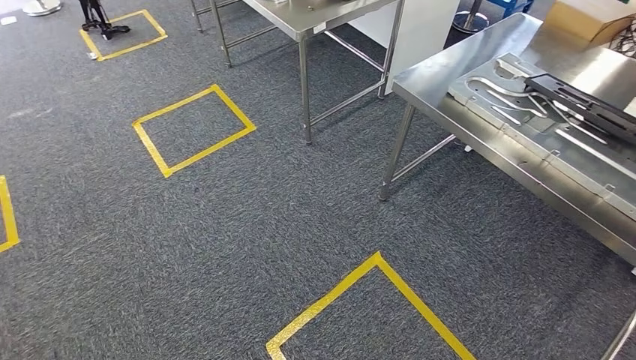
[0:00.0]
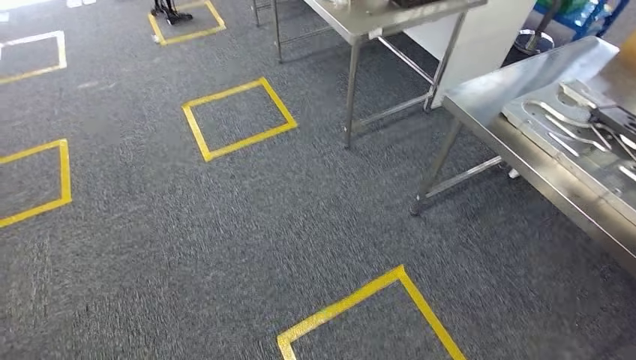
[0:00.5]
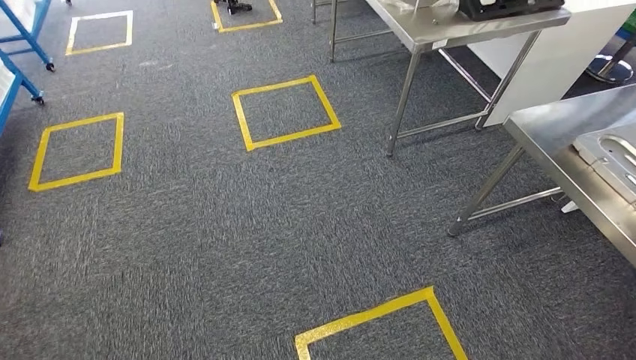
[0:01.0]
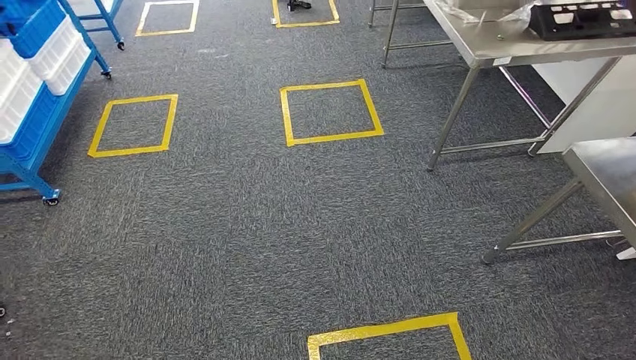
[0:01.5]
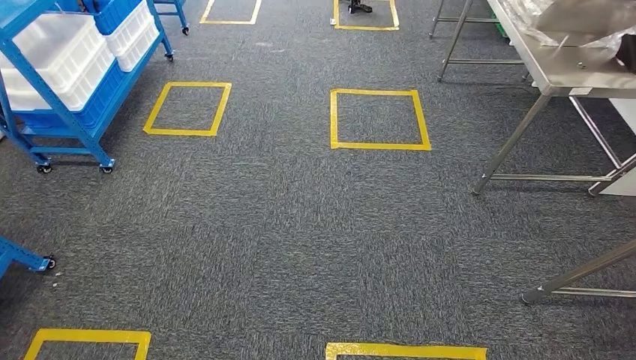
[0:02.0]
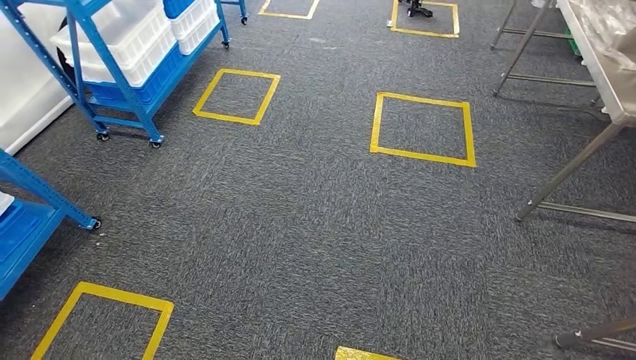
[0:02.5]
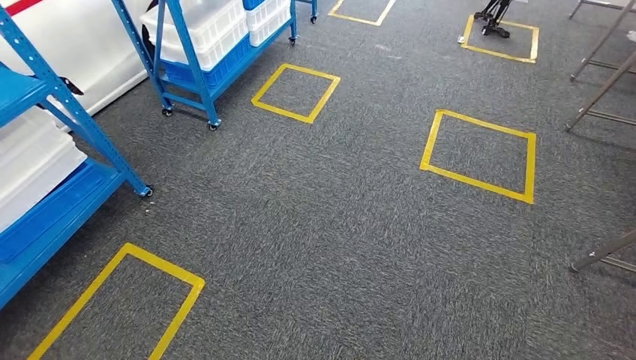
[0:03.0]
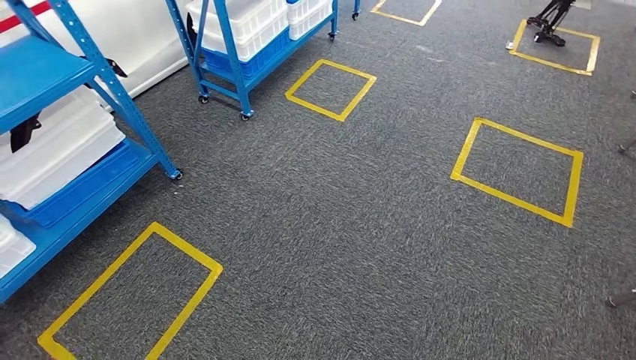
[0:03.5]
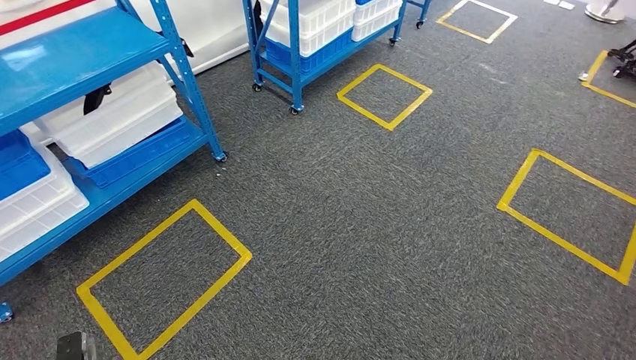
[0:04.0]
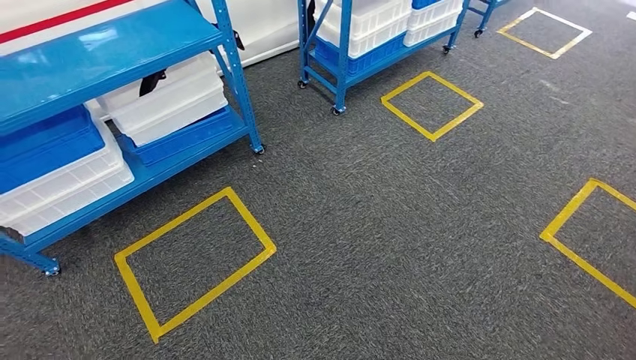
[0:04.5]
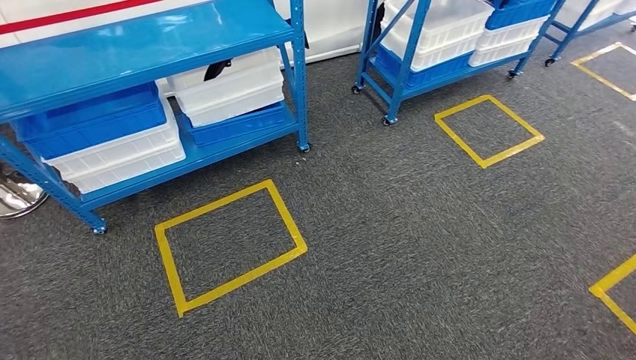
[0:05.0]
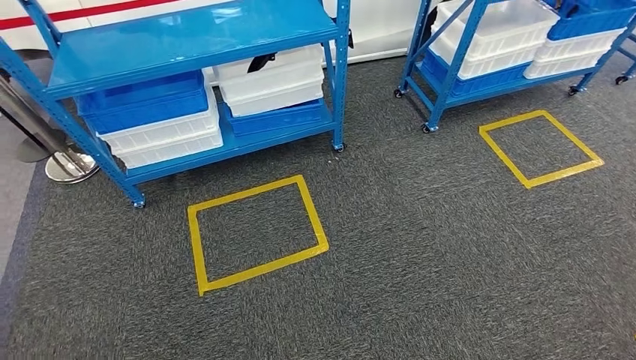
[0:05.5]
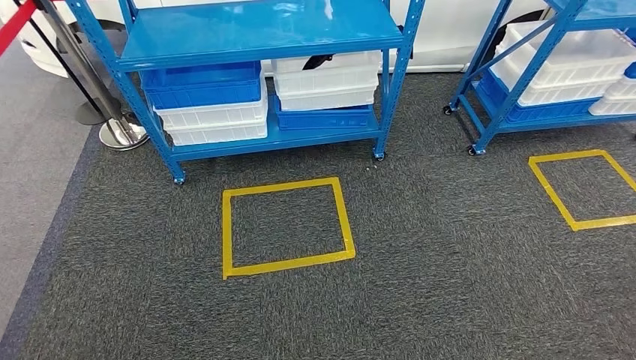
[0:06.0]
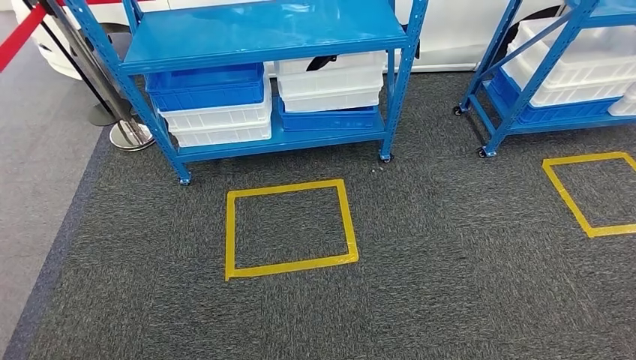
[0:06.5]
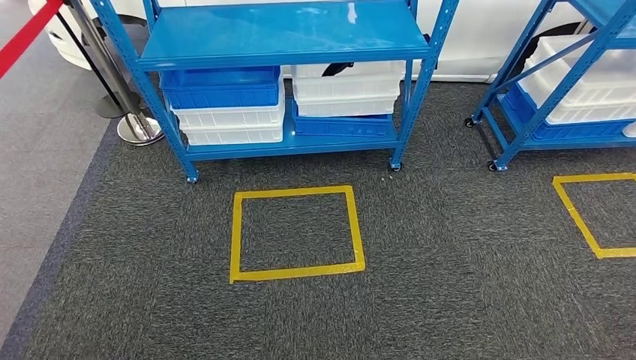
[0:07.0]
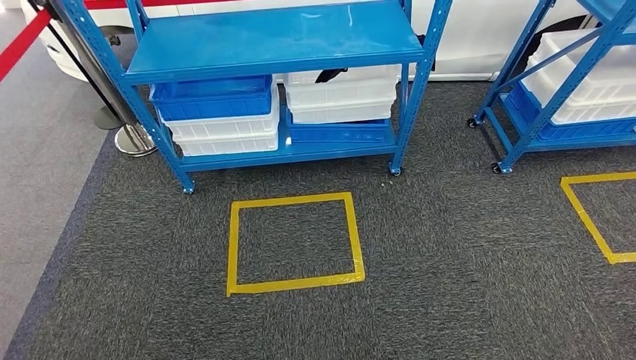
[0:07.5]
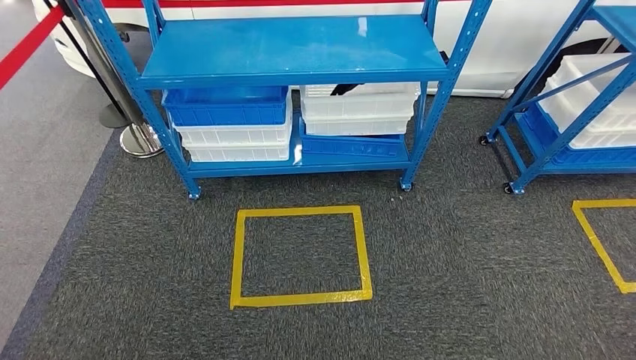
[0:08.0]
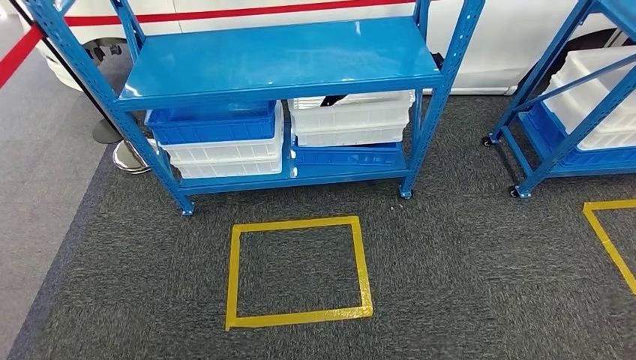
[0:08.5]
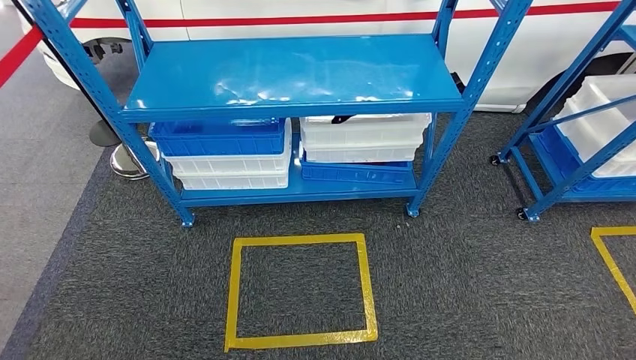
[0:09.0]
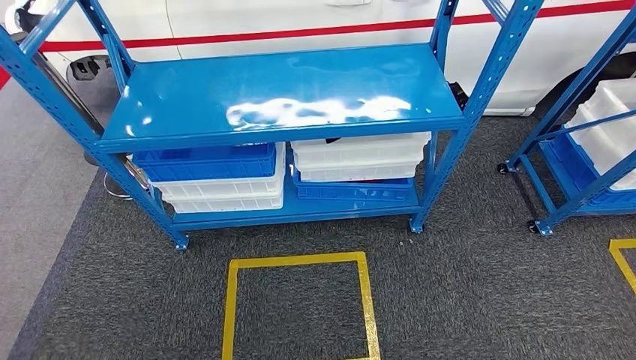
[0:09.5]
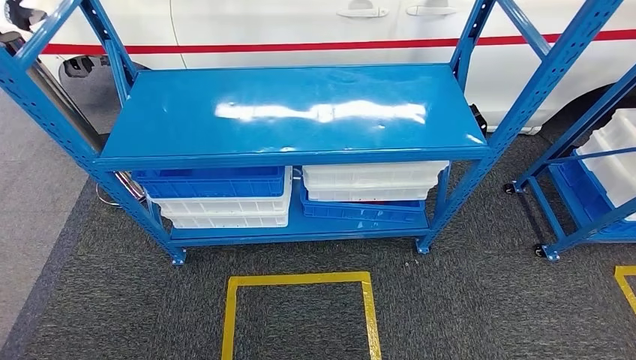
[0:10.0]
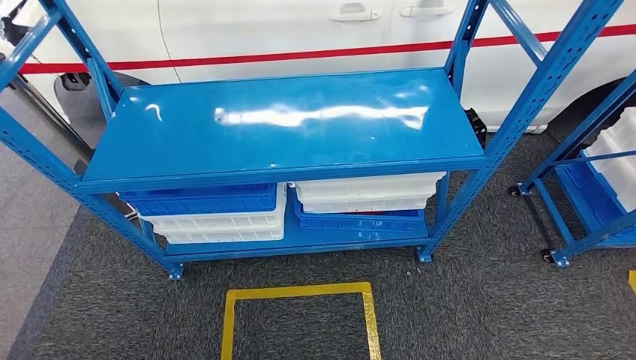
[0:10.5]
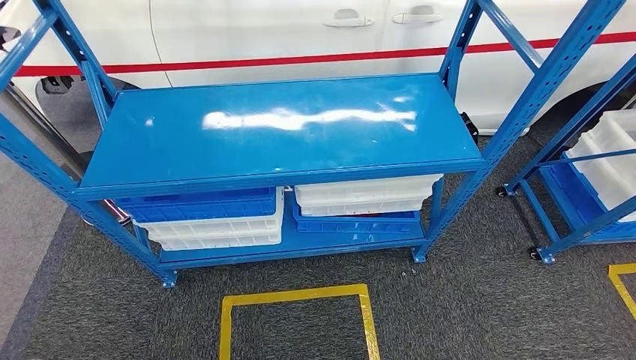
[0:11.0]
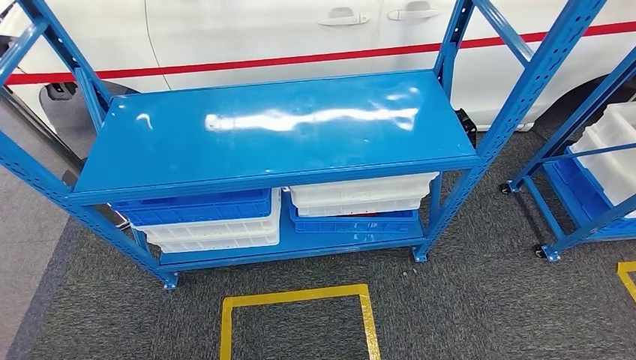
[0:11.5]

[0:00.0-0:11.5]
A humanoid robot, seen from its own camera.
Step, 0:00.0 to 0:11.5: Move to the initial position of the shelf.
